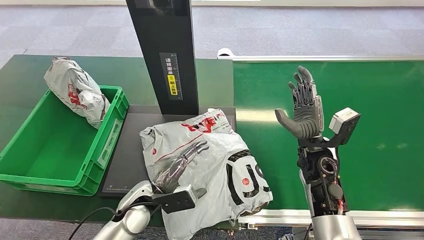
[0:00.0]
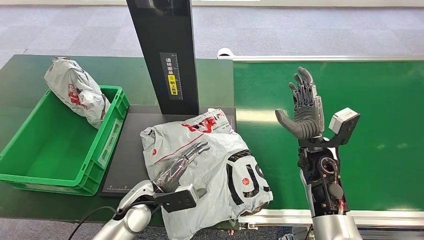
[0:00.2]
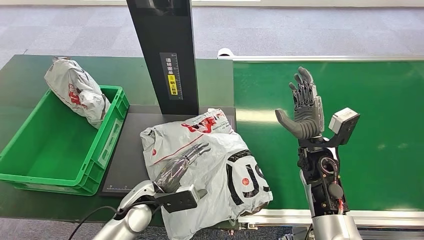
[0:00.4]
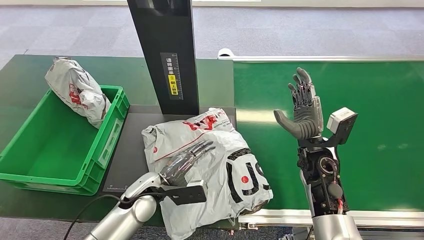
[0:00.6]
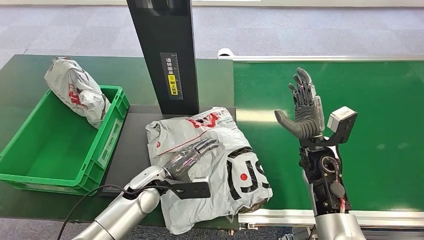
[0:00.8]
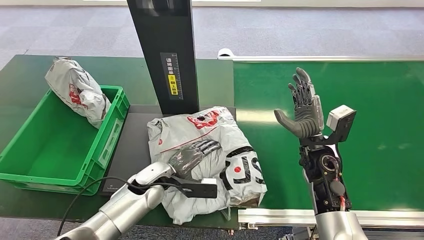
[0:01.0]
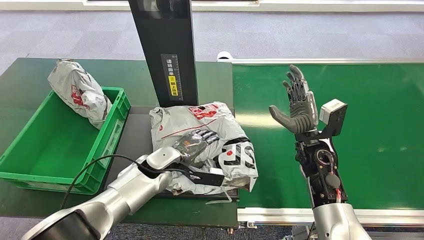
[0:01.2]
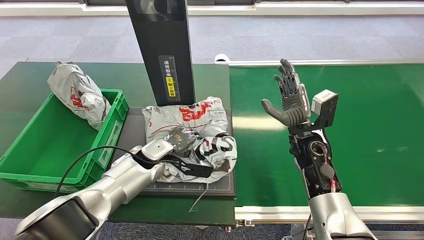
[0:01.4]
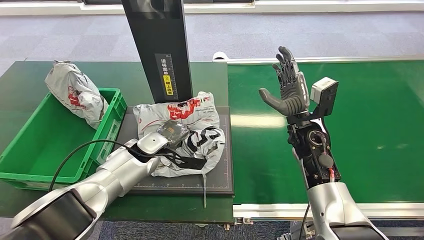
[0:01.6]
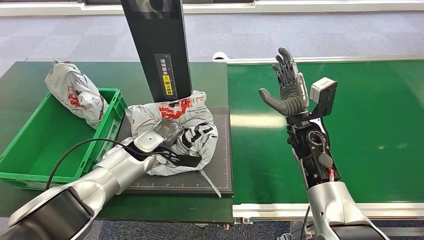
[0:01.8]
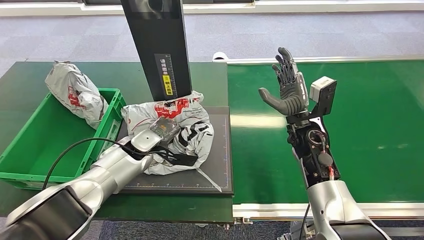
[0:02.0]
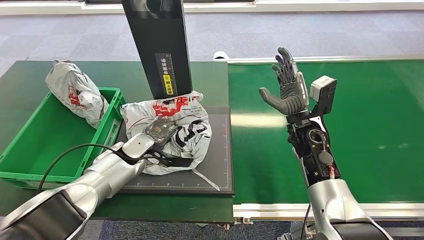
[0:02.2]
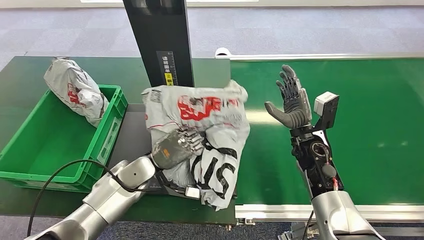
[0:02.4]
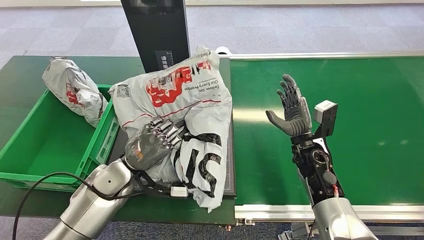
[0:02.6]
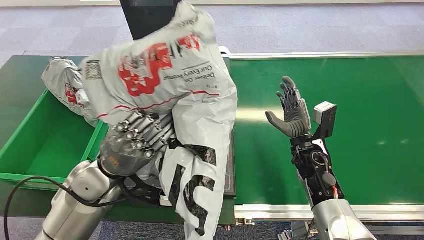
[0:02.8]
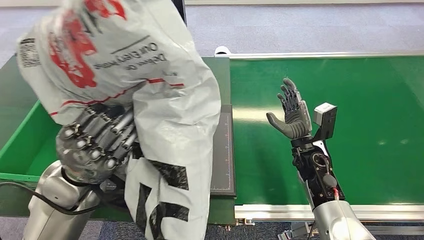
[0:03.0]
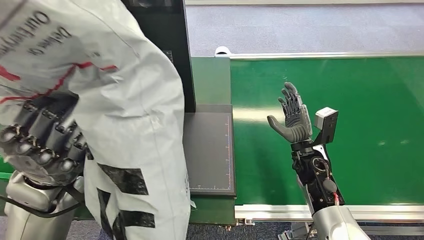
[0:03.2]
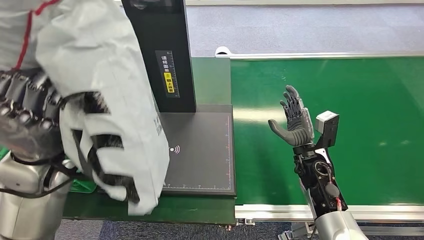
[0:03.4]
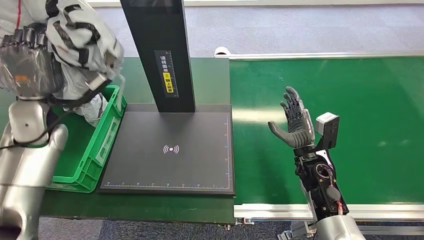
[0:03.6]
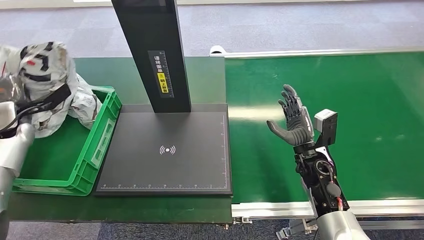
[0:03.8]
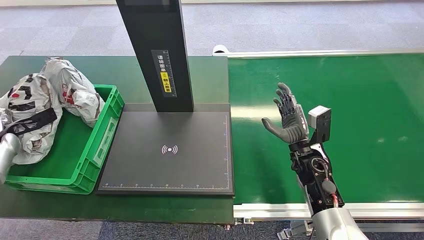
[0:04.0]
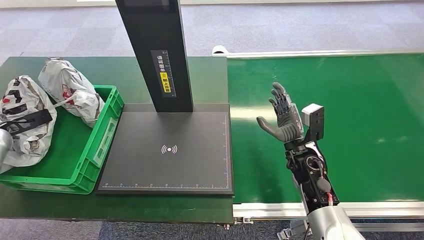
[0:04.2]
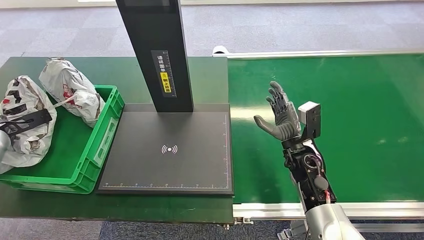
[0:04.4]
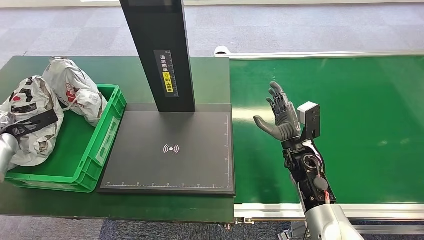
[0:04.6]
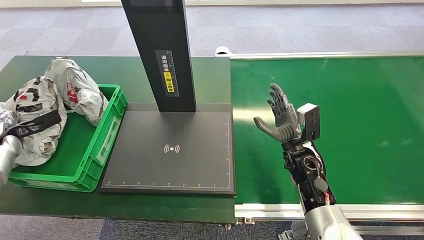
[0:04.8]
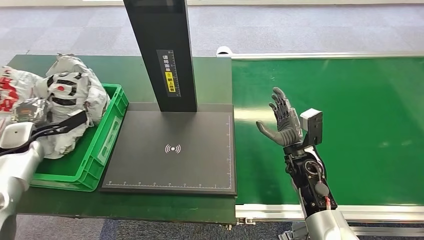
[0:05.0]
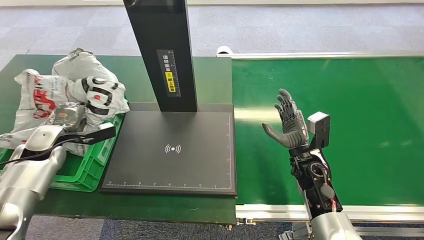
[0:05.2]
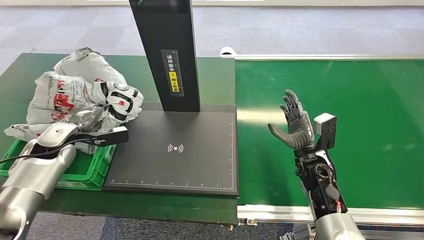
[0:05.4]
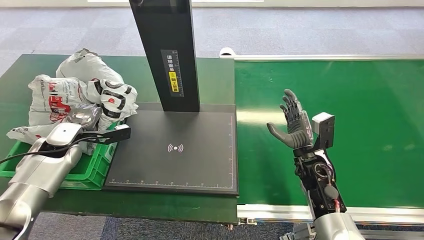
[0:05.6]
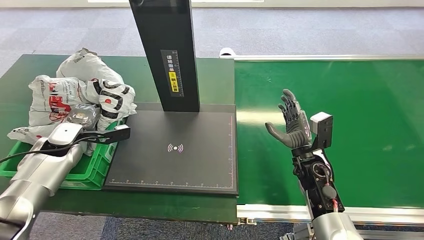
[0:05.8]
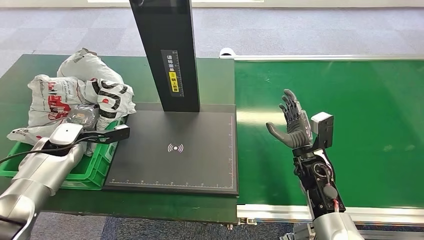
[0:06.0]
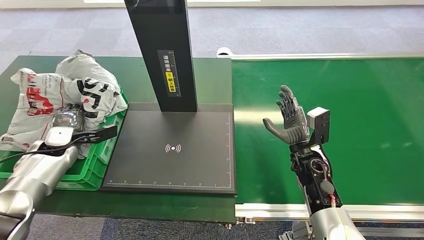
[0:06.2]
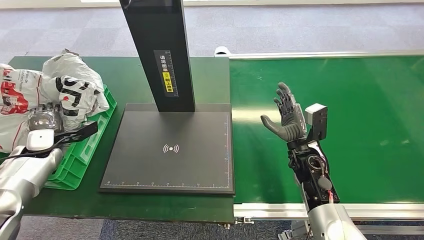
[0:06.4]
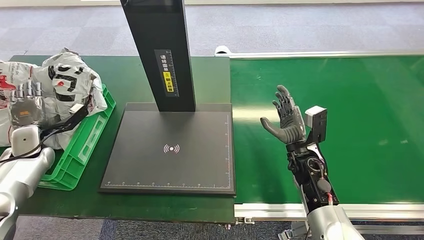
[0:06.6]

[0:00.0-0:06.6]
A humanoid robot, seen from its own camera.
Step, 0:00.0 to 0:02.4: Pick up the package from the inbound machine.
Step, 0:02.6 to 0:06.6: Place the package into the parcel locker.
0:05.0 to 0:06.6: The left hand travels to the right and back again, some 10 cm each way.
